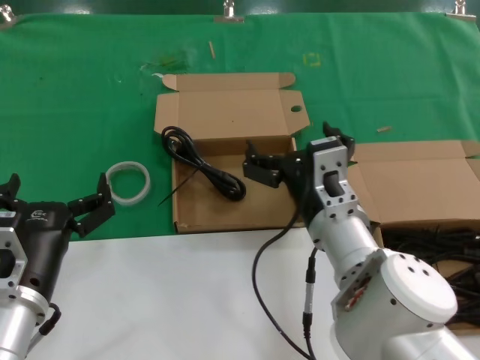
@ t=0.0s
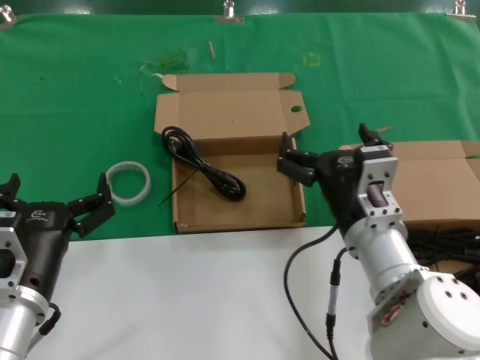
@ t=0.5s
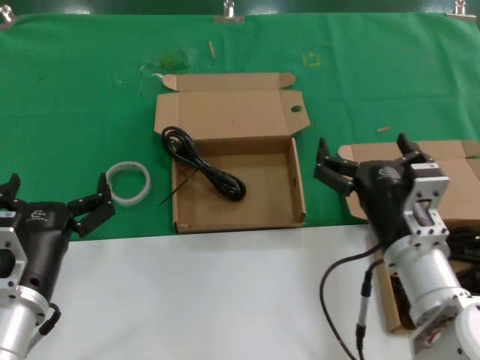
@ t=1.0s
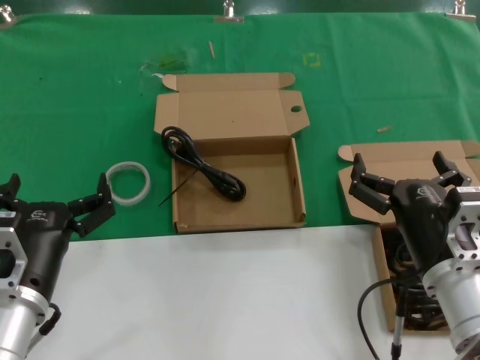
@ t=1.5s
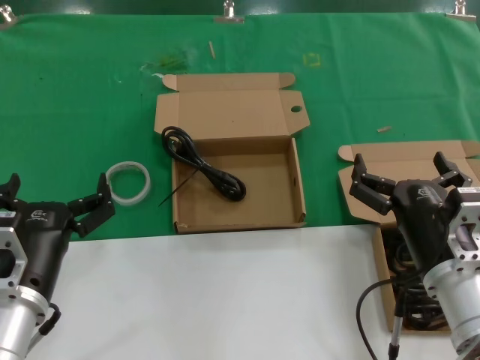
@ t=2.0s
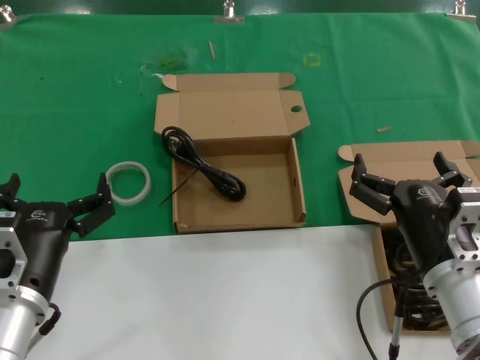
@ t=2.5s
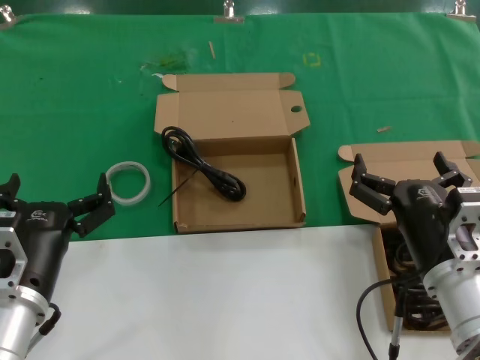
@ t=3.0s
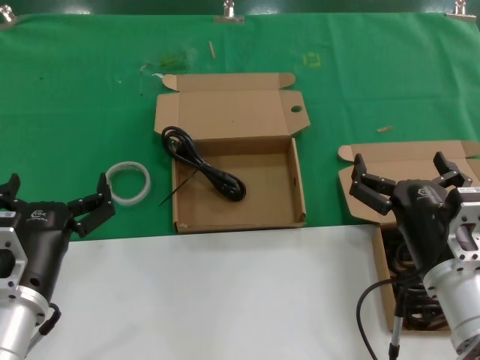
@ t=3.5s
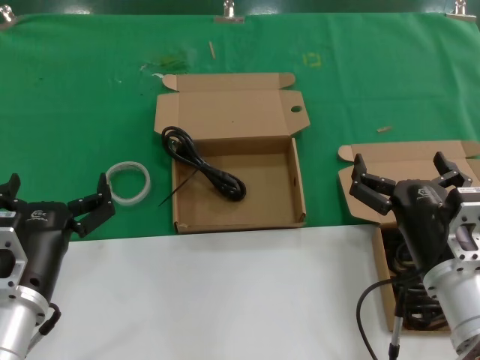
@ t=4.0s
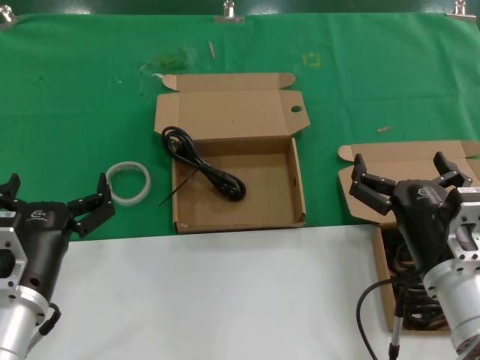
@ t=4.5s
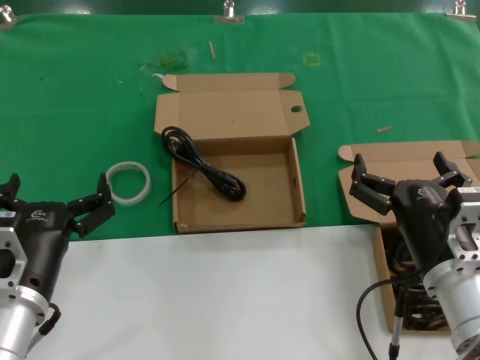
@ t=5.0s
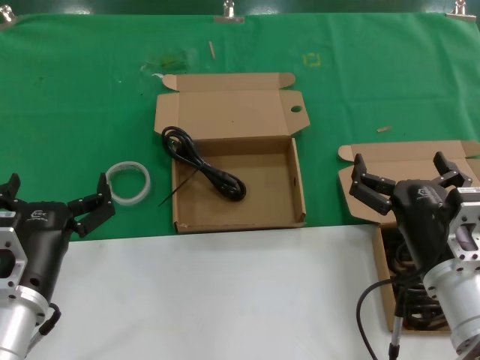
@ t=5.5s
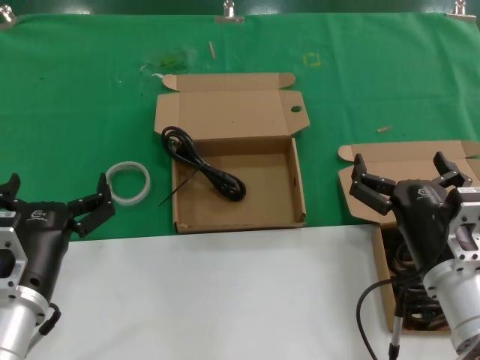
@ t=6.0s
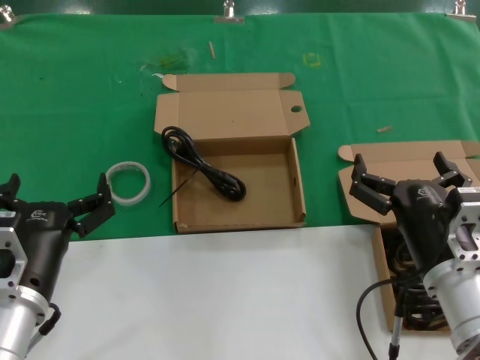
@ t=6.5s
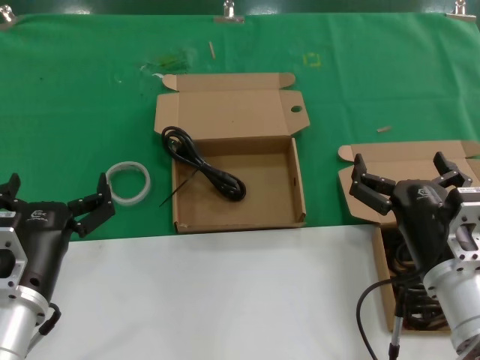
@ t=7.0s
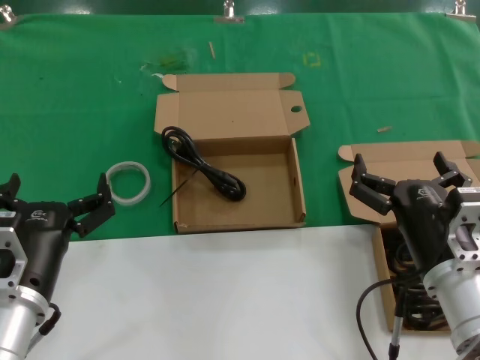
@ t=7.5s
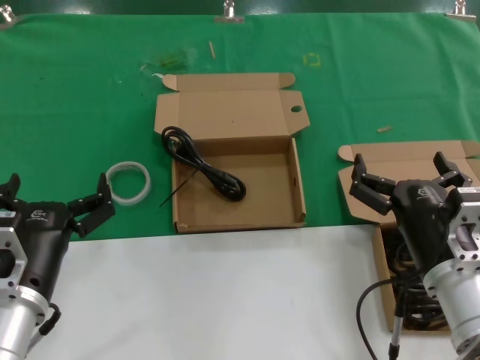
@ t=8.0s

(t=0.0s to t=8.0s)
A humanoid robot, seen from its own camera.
Task of the whole recording: take the parts from the box containing them and put them into an empty box.
t=0.0s - t=2.0s: The right hand shifts some 15 cm to the right and backward.
t=2.0s - t=8.0s: Both hands stay put.
